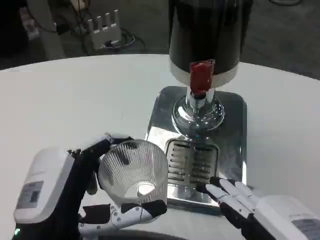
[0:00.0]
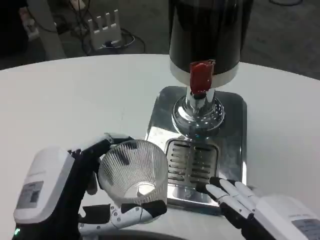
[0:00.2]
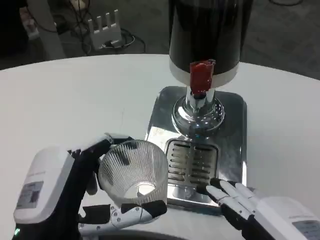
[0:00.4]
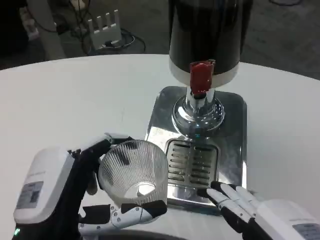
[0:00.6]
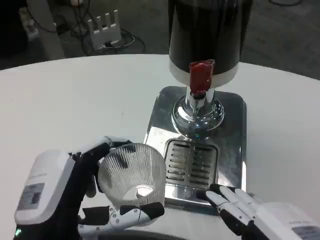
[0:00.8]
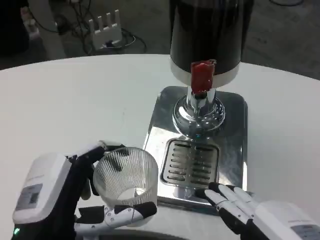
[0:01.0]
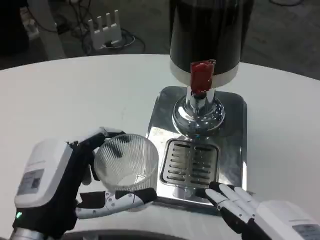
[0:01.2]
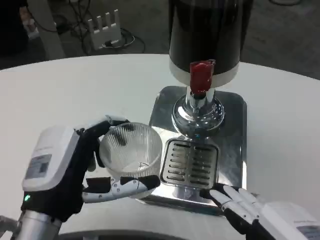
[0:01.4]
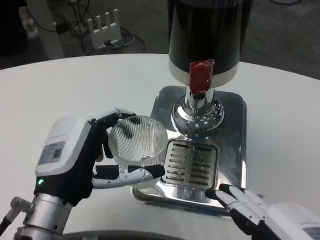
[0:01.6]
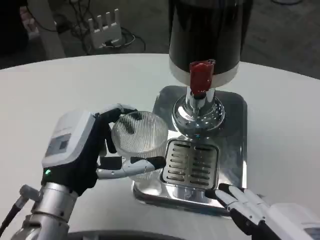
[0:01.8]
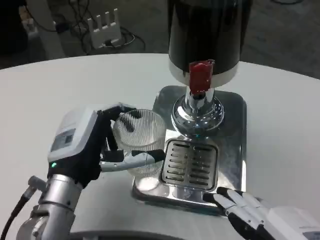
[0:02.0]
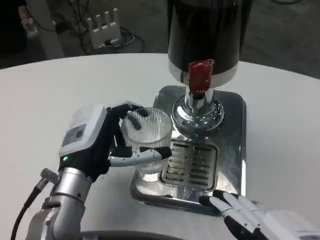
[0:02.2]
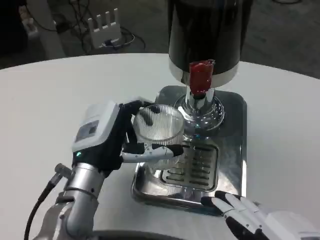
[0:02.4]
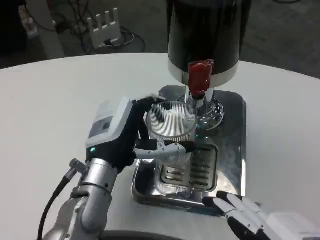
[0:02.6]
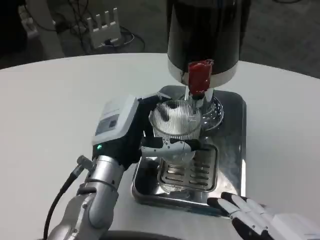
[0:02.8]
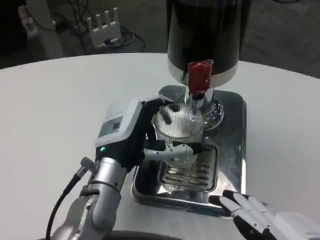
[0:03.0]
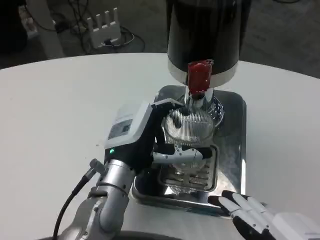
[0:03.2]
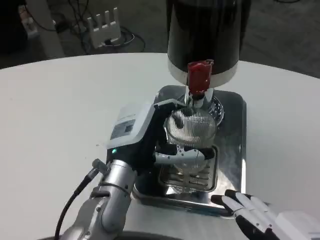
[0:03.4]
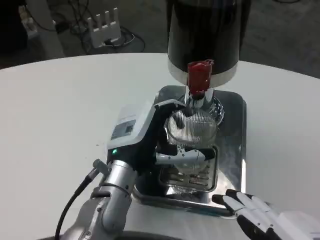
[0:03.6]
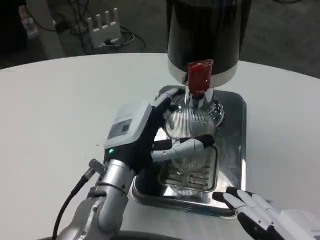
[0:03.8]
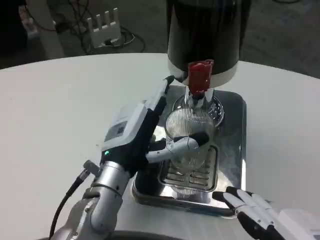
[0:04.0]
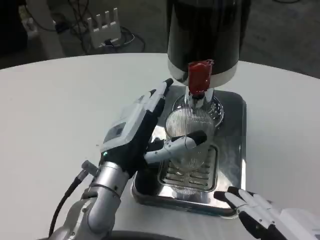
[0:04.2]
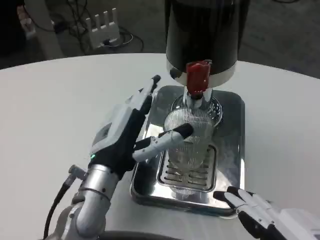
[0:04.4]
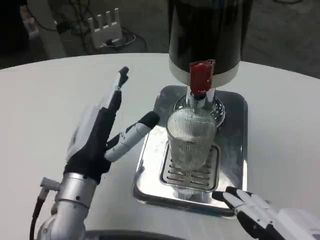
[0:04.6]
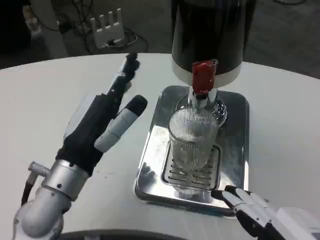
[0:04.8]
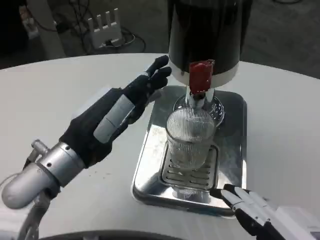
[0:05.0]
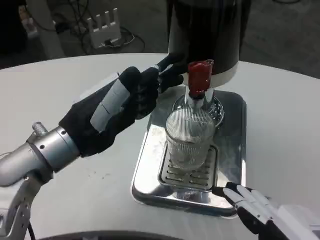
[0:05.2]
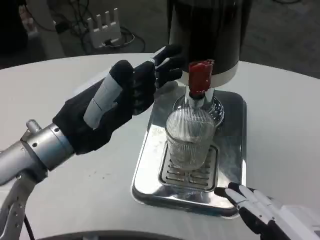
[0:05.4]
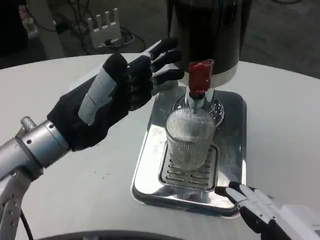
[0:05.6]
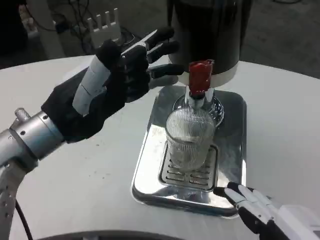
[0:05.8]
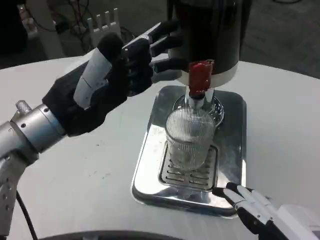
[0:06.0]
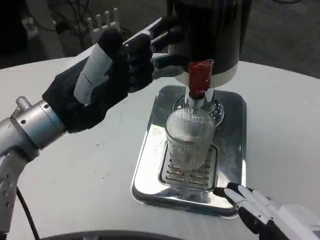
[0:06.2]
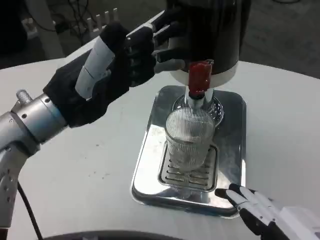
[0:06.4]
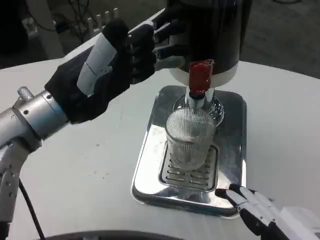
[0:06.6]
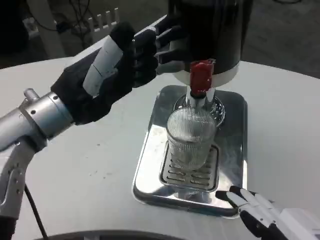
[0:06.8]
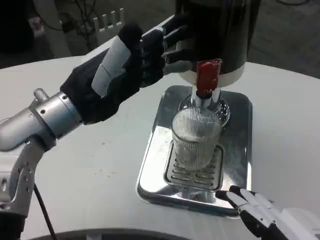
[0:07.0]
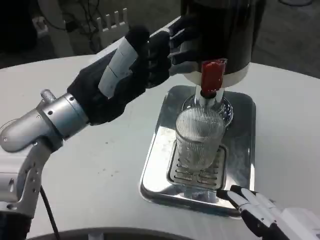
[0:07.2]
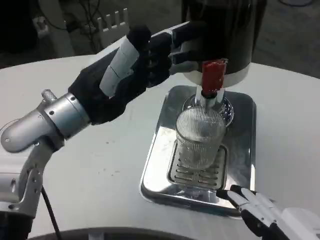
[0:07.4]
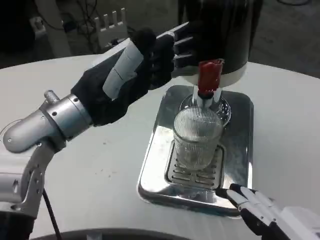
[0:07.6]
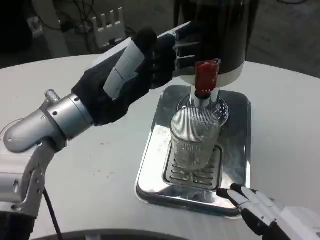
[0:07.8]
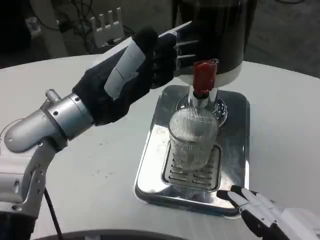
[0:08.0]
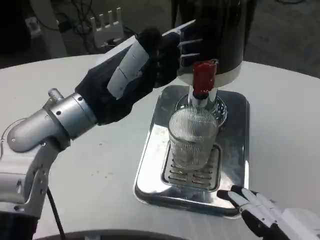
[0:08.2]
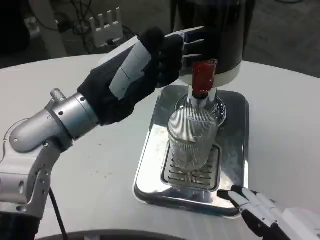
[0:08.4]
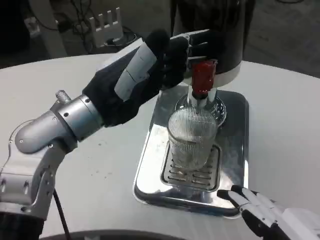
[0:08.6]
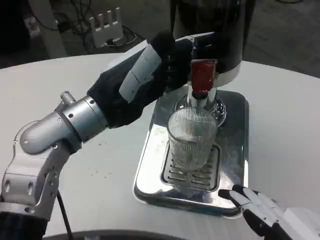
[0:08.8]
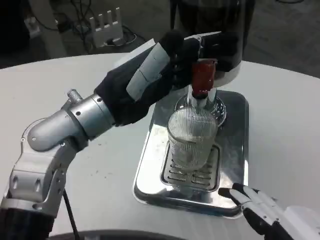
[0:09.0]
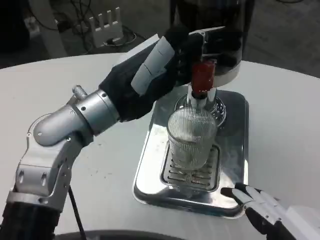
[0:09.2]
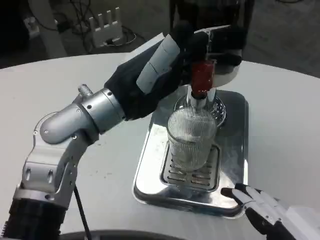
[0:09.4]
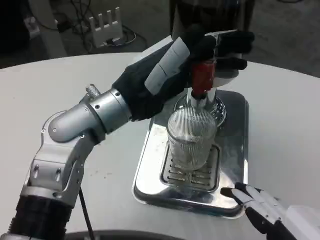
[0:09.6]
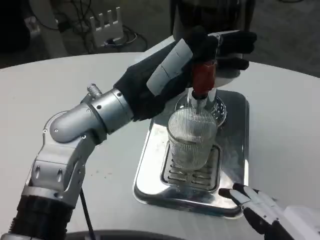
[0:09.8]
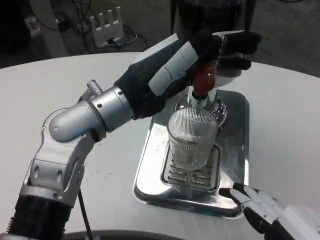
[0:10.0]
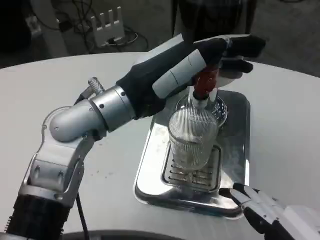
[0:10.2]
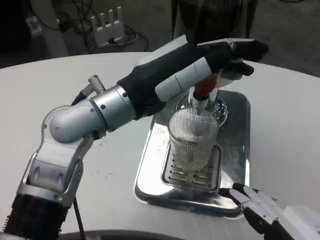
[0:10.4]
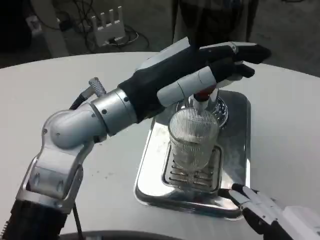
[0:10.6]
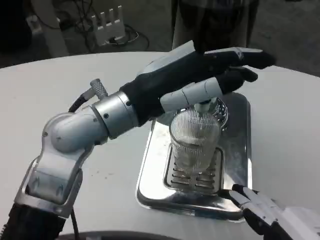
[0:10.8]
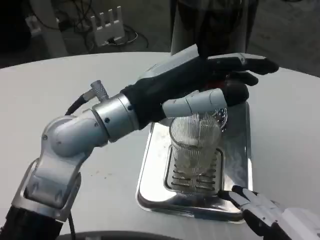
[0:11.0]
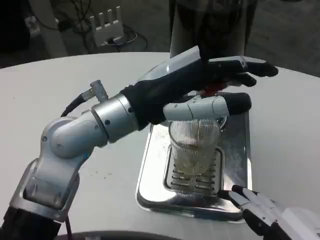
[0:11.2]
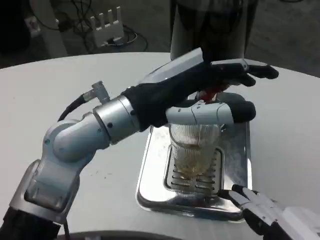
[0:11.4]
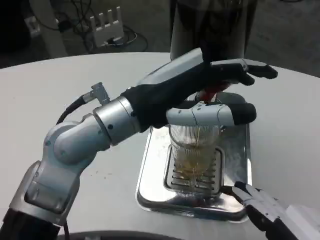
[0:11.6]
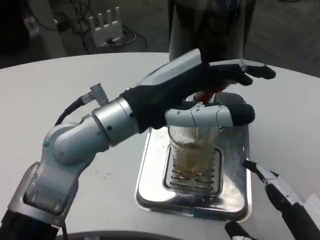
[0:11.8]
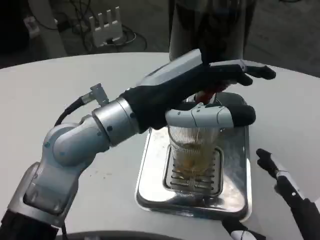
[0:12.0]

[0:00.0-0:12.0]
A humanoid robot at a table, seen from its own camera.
Task of the whole recording: Grasp the cup under the faucet to collect the drink, then remove the cup.
0:00.0 to 0:01.6: The left hand heads forward, covering approximately 10 cm.
0:01.6 to 0:03.0: The left hand travels forward and to the right by some 10 cm.
0:03.0 to 0:04.4: The hands make only small movements.
0:04.4 to 0:06.0: The left hand shifts roughly 15 cm upward and to the left.
0:10.4 to 0:12.0: The right hand changes place by approximately 5 cm.

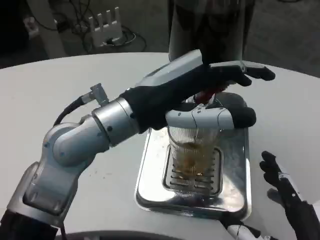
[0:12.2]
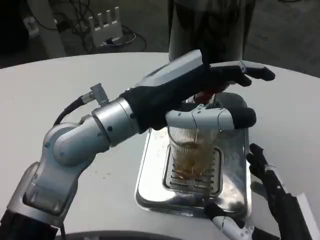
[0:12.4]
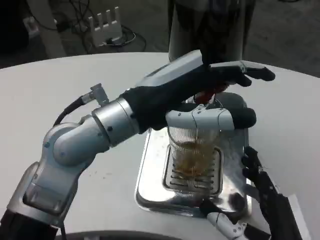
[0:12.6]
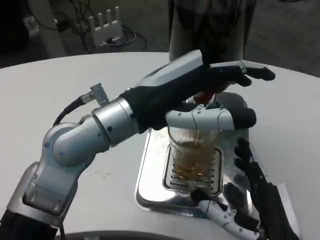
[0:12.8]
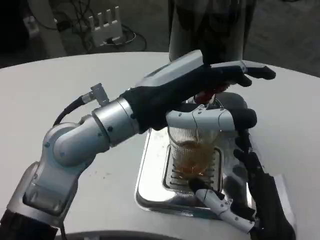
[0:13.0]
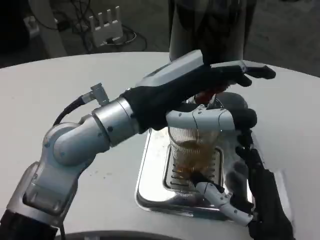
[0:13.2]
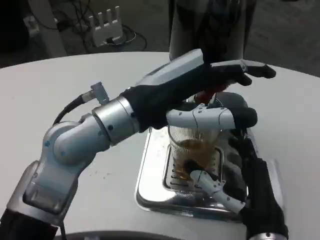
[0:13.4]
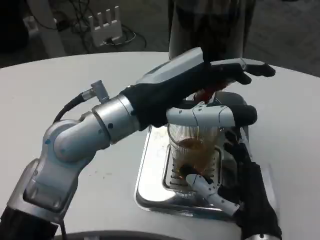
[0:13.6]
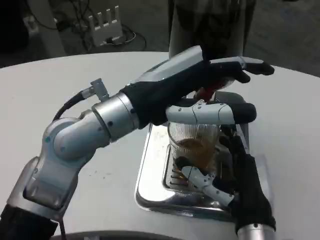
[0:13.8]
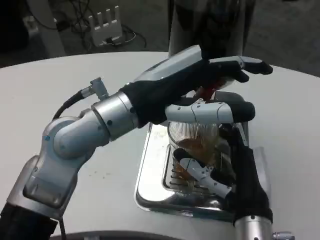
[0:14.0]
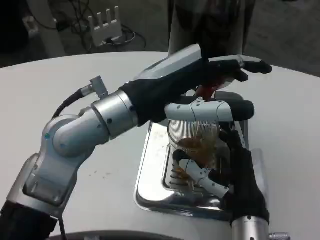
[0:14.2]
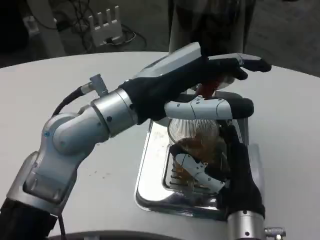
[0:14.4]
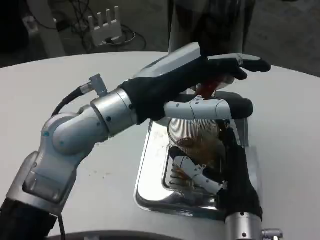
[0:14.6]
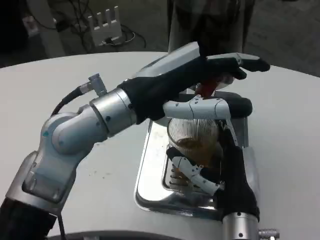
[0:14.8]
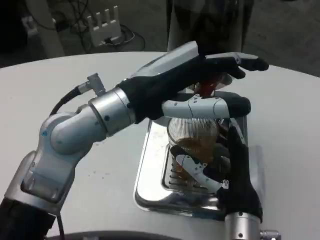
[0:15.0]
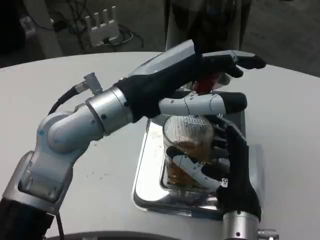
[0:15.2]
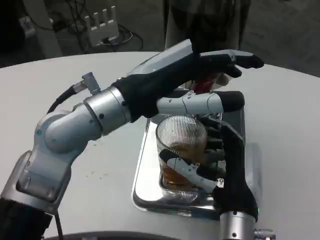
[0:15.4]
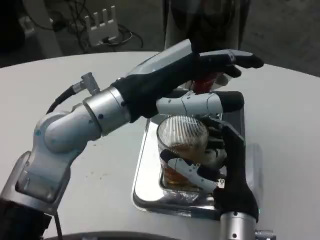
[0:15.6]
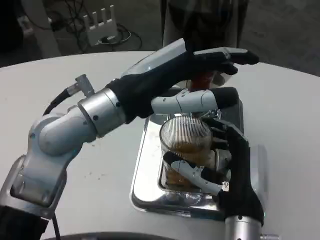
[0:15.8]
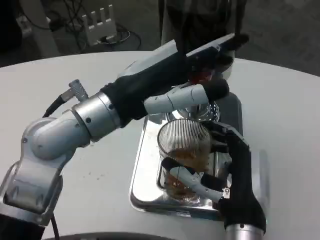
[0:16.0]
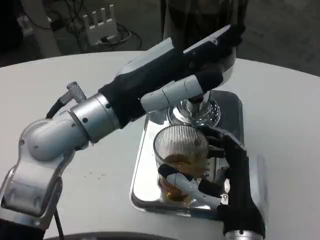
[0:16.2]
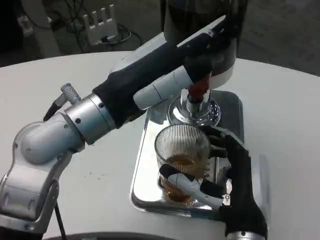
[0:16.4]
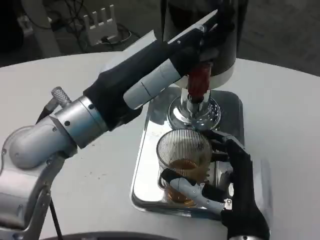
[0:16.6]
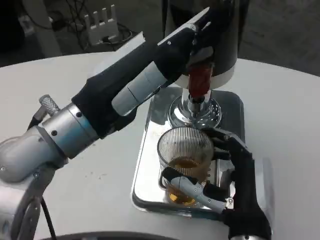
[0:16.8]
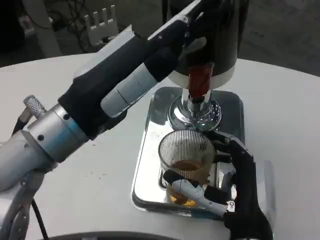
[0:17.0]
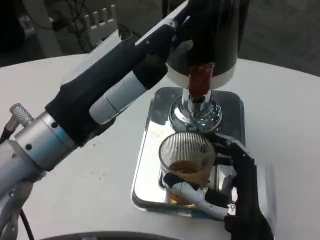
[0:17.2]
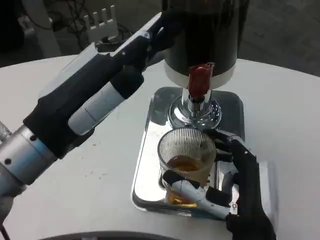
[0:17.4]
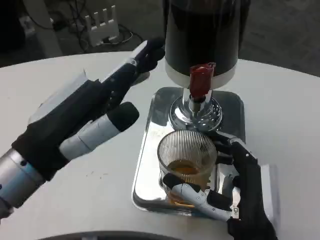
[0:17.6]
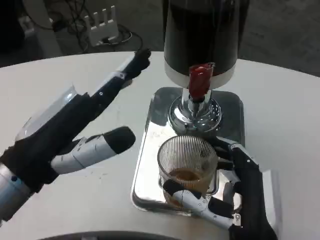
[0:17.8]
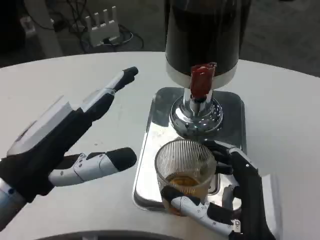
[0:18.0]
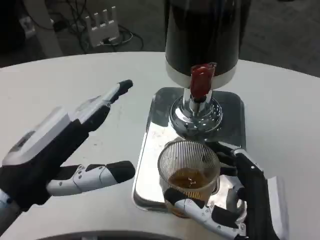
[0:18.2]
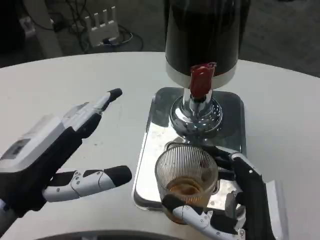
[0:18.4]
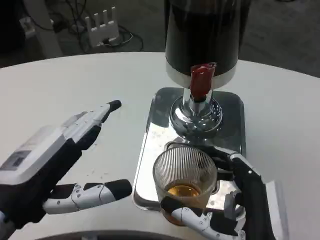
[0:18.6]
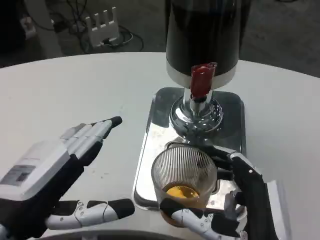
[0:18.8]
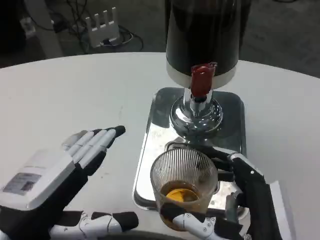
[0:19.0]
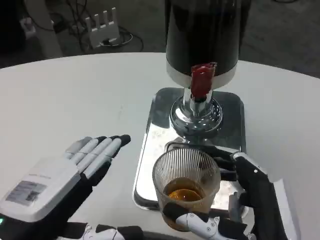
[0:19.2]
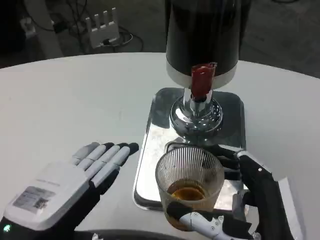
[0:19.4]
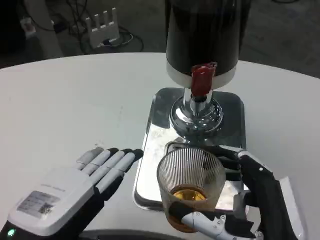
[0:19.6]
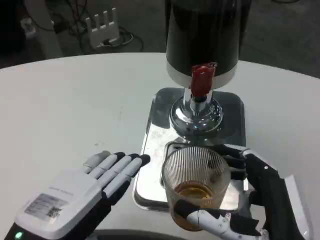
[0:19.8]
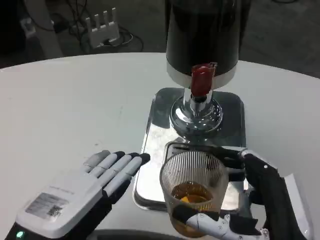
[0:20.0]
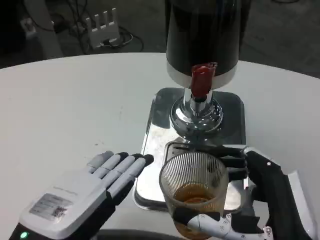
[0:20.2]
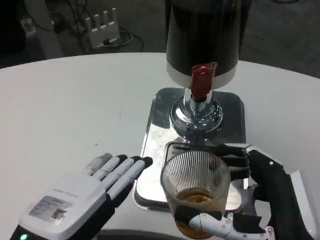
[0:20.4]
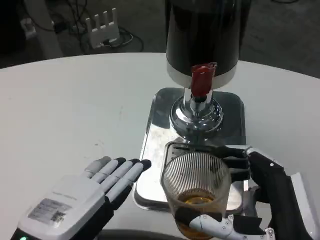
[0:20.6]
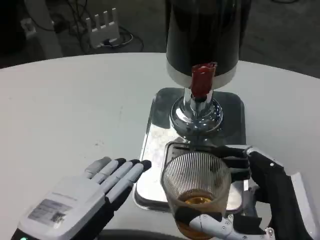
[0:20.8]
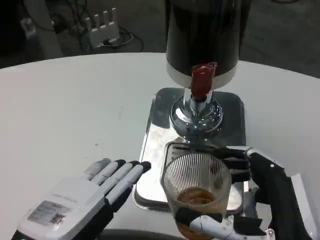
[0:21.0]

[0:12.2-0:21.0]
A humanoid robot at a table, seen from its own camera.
Task of the whole recording: Grasp the cup under the faucet to collect the drink, then remove the cup.
0:12.2 to 0:13.6: The right hand heads forward and to the left, covering about 10 cm.
0:16.6 to 0:18.0: The left hand shifts some 10 cm backward, to the left and downward.
0:18.0 to 0:19.6: The left hand moves approximately 5 cm; the right hand moves some 5 cm.
0:19.6 to 0:21.0: Both hands stay about where they are.

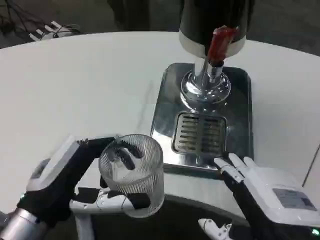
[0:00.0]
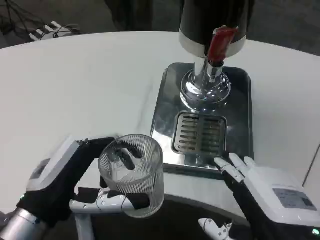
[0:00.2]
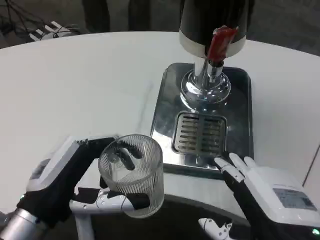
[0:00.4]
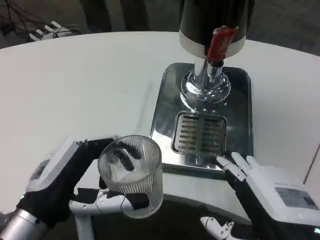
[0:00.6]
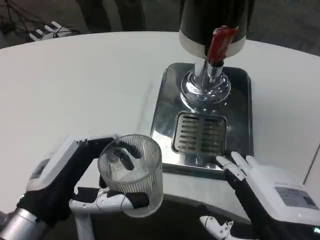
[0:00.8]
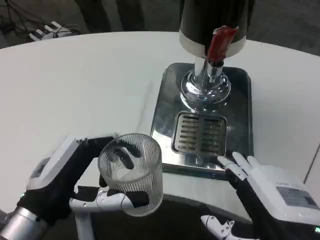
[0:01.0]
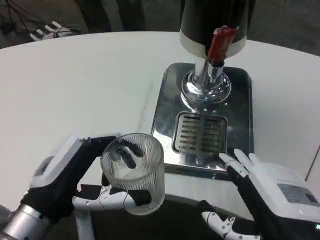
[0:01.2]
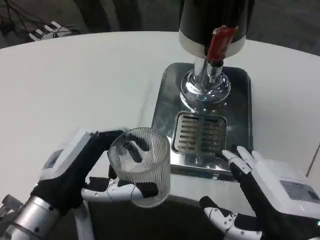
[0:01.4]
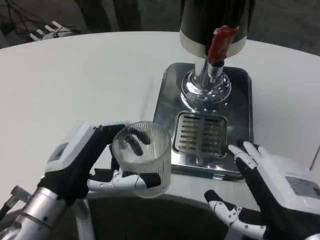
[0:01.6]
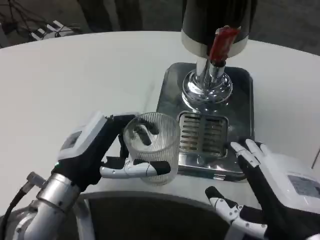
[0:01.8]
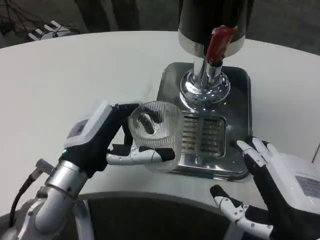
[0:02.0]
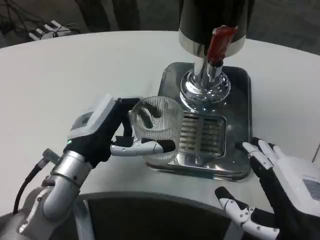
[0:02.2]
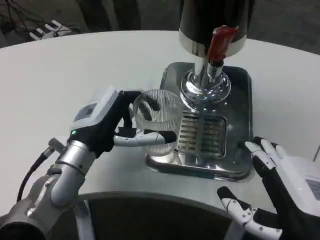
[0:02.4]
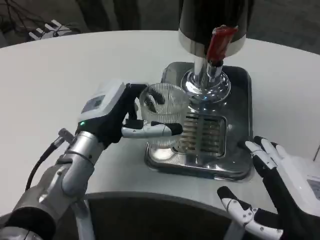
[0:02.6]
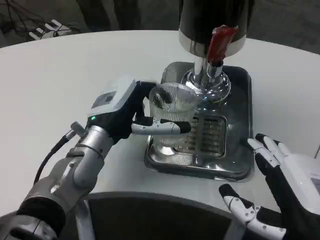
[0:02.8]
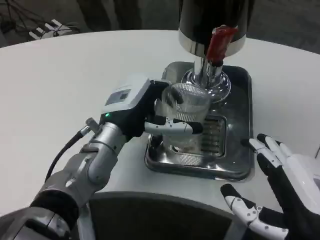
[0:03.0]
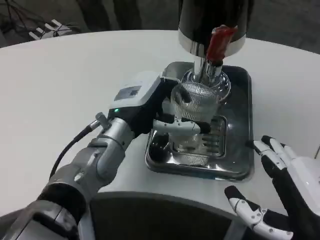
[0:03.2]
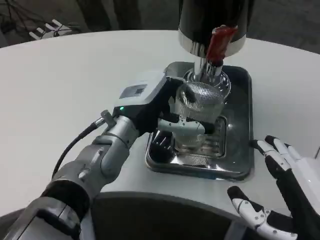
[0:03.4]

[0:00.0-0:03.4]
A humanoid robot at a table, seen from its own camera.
Task of the whole recording: Grasp the cup under the faucet to collect the drink, then remove the cup.
0:01.6 to 0:03.4: The left hand is displaced forward, to the right and upward by about 15 cm.
